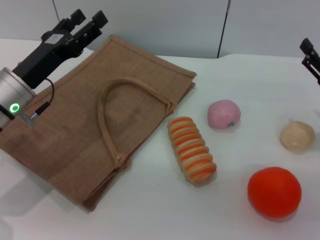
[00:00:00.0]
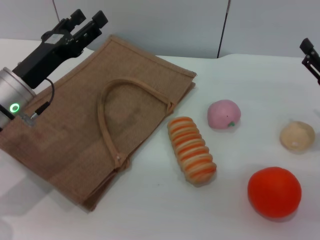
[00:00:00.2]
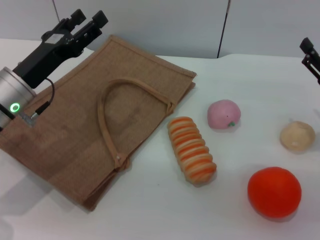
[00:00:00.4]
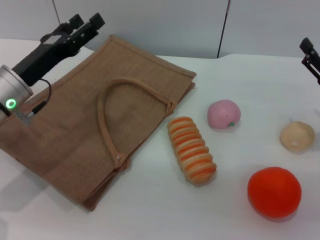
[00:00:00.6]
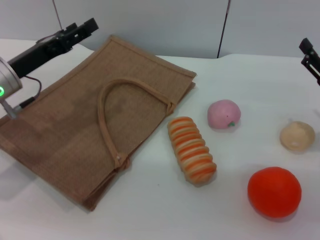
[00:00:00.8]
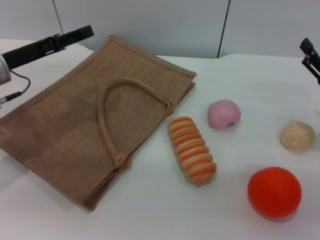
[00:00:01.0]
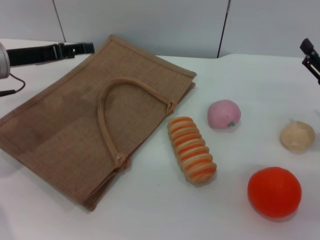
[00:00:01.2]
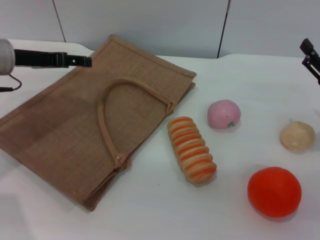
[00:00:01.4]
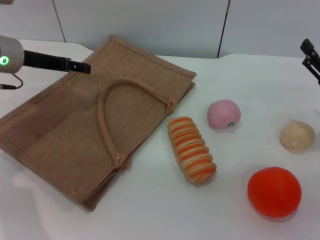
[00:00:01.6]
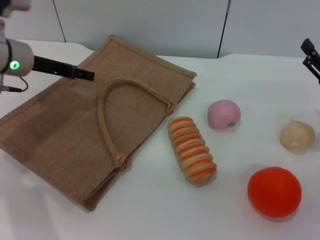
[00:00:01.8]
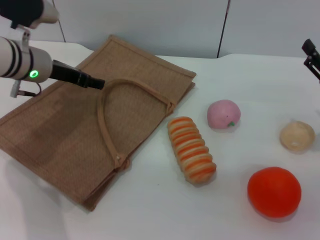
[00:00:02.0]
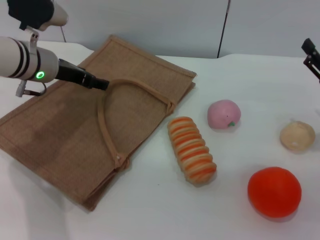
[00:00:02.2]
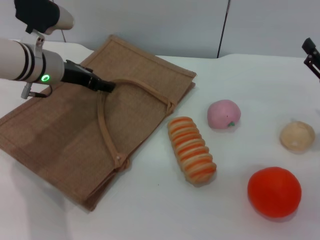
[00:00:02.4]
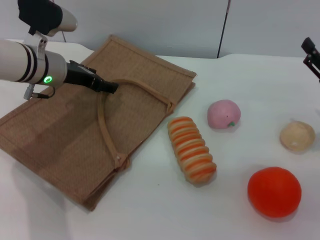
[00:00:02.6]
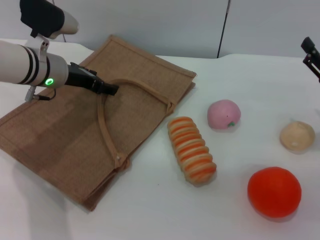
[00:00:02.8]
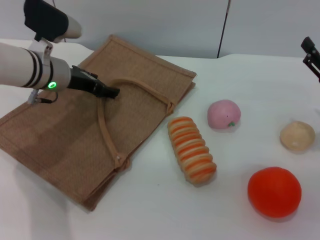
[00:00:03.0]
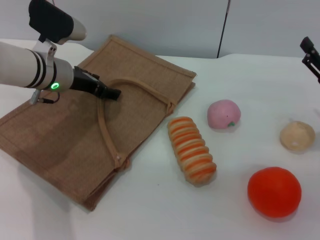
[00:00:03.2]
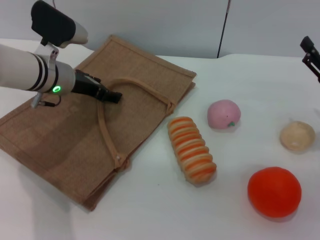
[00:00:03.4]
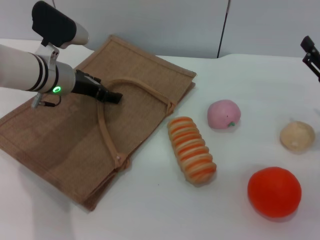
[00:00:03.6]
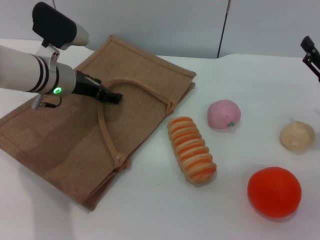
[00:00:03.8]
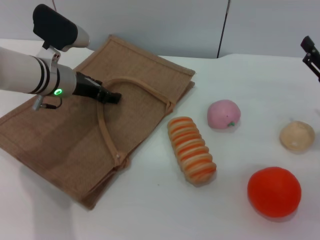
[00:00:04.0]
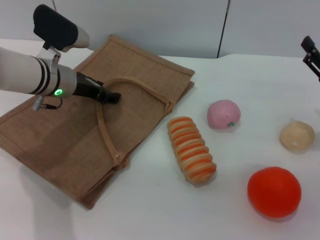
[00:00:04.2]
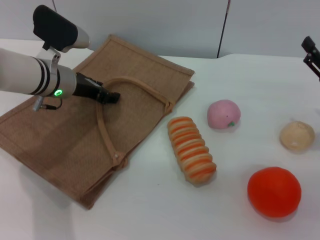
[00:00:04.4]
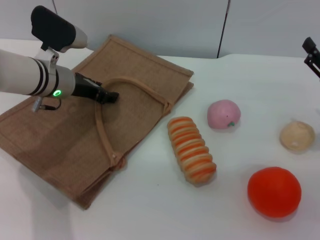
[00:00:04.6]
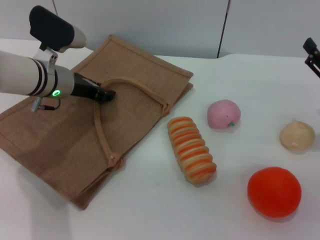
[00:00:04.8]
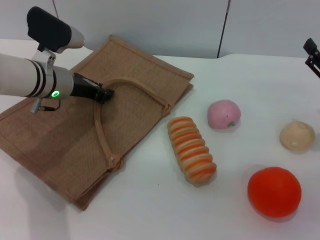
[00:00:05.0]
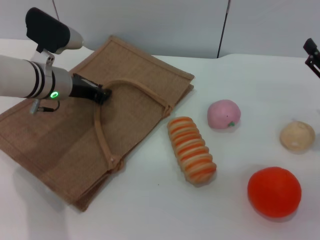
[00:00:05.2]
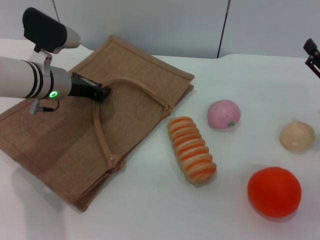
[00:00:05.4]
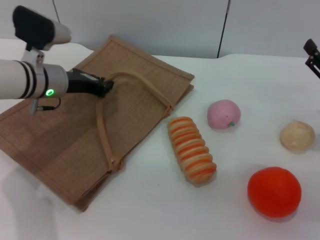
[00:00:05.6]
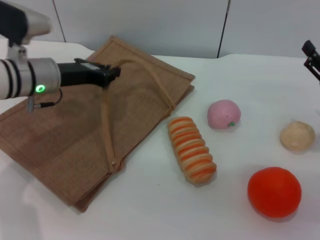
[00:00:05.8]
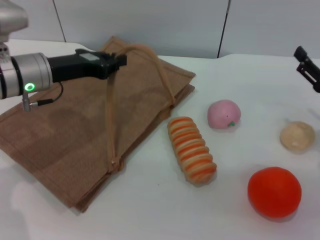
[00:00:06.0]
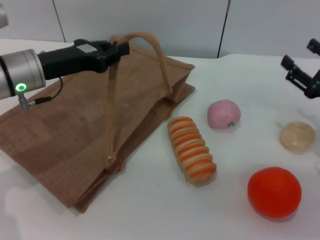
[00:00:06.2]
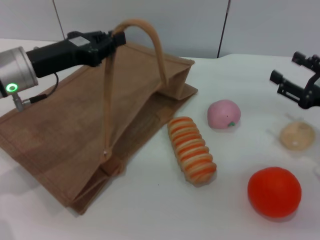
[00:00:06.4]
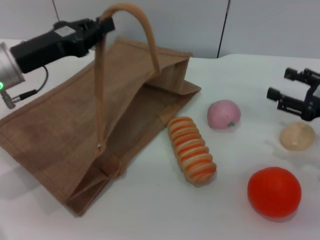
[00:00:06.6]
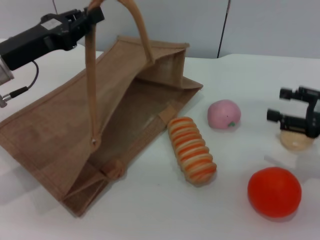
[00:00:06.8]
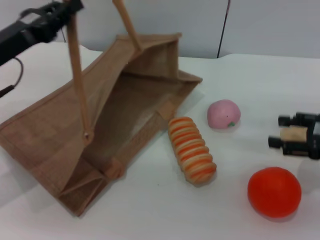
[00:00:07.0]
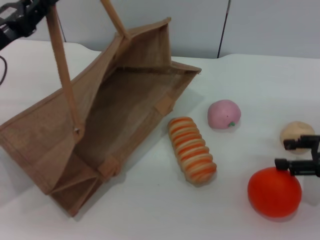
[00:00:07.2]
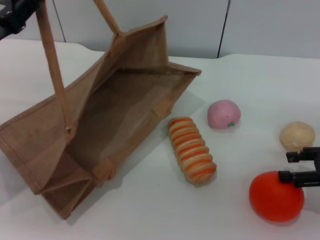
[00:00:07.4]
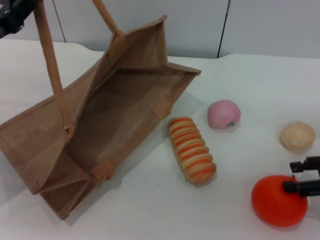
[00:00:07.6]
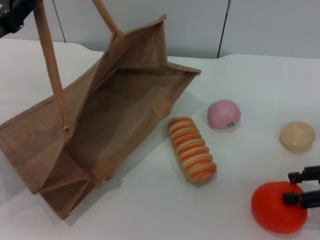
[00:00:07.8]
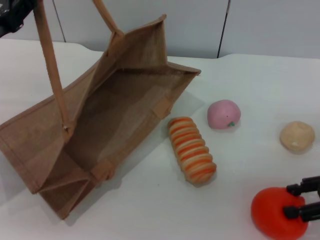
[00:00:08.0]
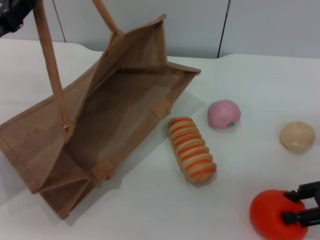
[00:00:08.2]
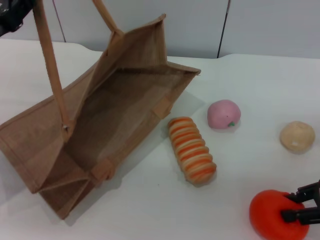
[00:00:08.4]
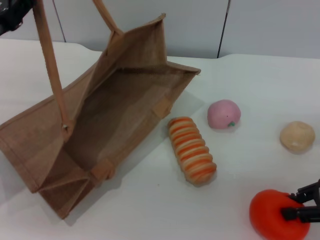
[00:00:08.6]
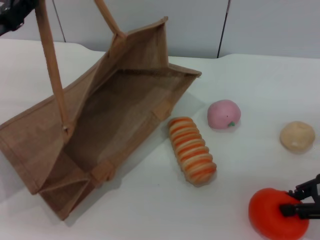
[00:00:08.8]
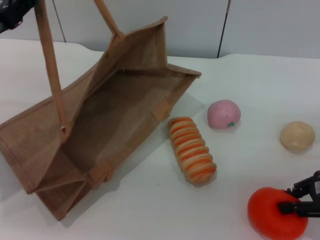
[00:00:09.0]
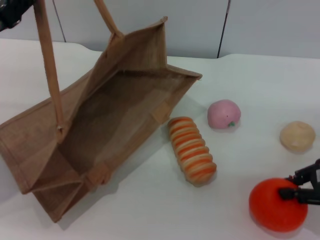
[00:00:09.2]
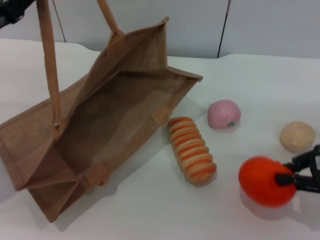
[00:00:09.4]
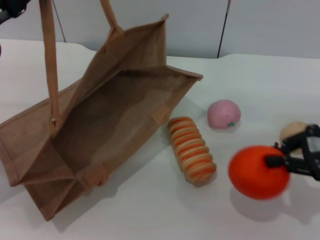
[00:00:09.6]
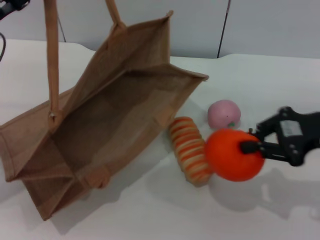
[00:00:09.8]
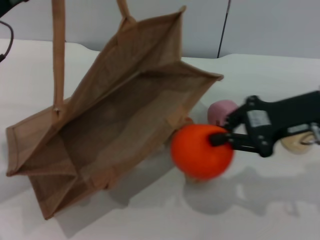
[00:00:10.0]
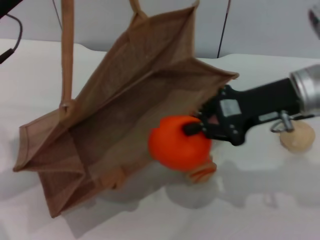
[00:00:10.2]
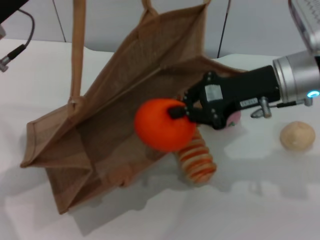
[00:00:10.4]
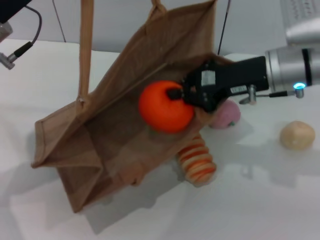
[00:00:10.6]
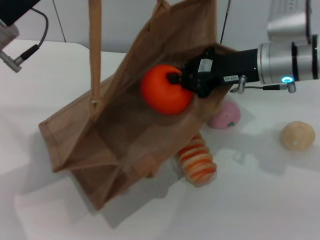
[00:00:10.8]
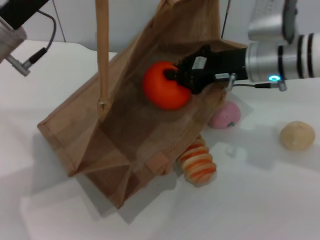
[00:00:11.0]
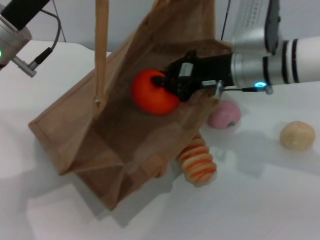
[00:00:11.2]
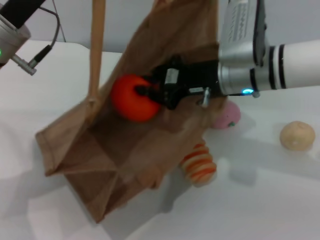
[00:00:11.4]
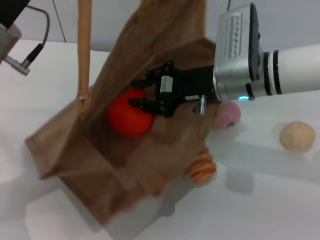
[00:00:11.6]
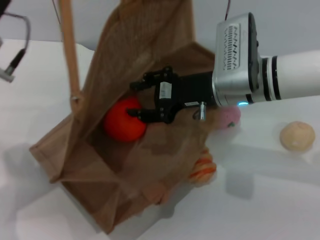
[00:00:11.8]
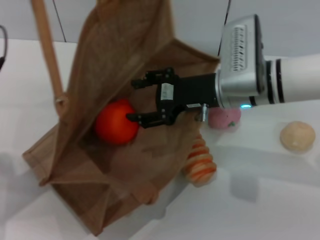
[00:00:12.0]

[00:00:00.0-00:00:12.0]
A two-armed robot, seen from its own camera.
Task of the whole recording: pick up the orange and peach from the table and place it in the brown handbag.
Step, 00:00:00.0 to 00:00:05.8: Lift the woven bag with the left gripper to open it.
Step, 00:00:06.0 to 00:00:09.6: Pick up the orange with the right gripper.
00:00:00.0 to 00:00:01.6: The left gripper moves forward, approximately 10 cm.
00:00:01.6 to 00:00:03.0: The left gripper shifts approximately 5 cm to the right.
00:00:03.0 to 00:00:04.4: Both grippers stay put.
00:00:04.4 to 00:00:06.0: The left gripper moves roughly 5 cm, and closes up.
00:00:06.0 to 00:00:07.6: The left gripper travels to the left and backward by some 10 cm.
00:00:07.6 to 00:00:09.0: The right gripper closes.
00:00:09.0 to 00:00:10.4: The left gripper shifts about 5 cm to the right, while the right gripper travels to the left, forward and upward by approximately 20 cm.
00:00:10.4 to 00:00:12.0: The right gripper moves to the left, some 5 cm, and opens its fingers, while the left gripper shifts by some 5 cm.

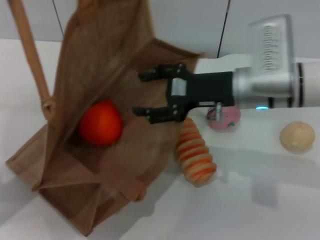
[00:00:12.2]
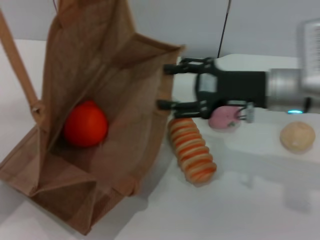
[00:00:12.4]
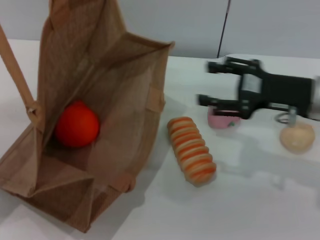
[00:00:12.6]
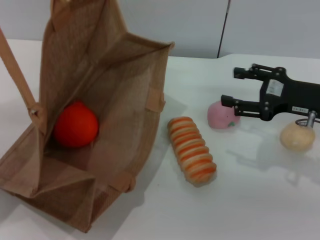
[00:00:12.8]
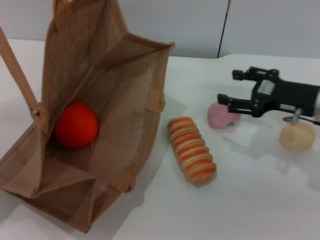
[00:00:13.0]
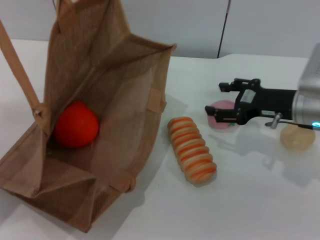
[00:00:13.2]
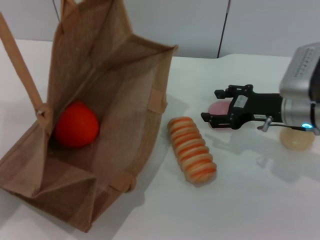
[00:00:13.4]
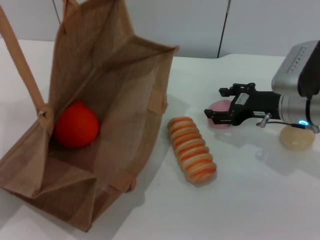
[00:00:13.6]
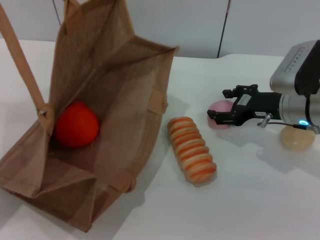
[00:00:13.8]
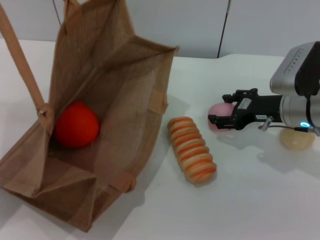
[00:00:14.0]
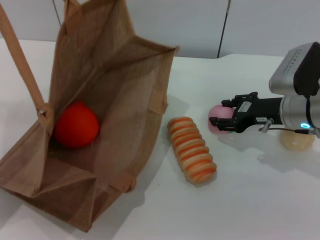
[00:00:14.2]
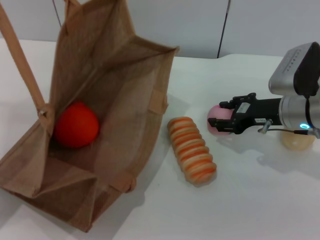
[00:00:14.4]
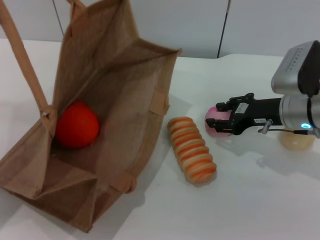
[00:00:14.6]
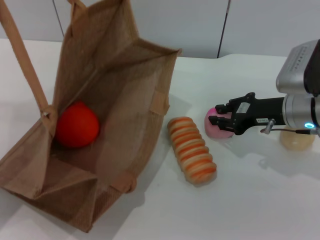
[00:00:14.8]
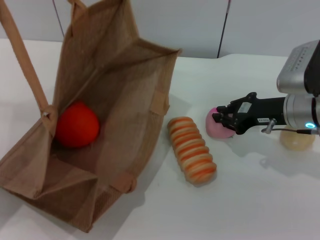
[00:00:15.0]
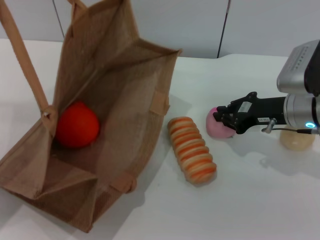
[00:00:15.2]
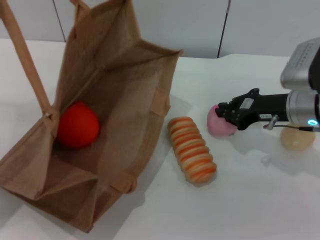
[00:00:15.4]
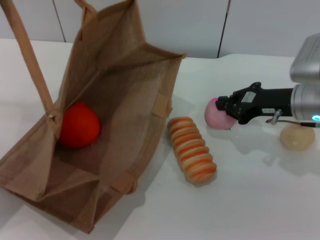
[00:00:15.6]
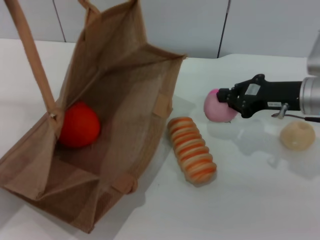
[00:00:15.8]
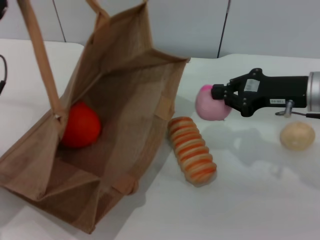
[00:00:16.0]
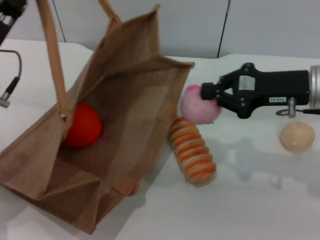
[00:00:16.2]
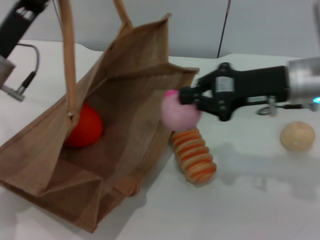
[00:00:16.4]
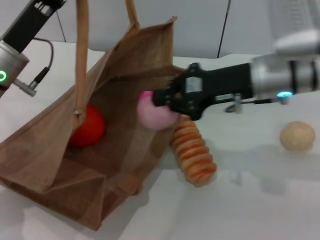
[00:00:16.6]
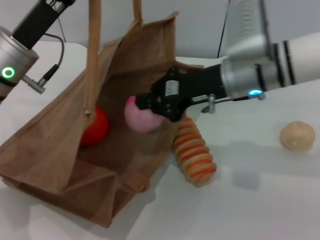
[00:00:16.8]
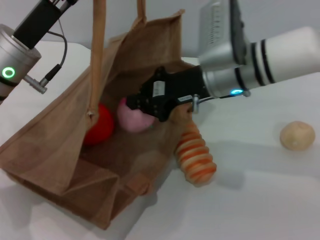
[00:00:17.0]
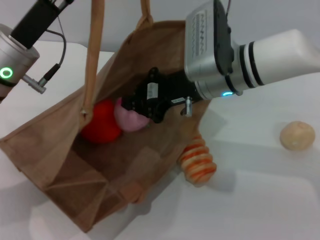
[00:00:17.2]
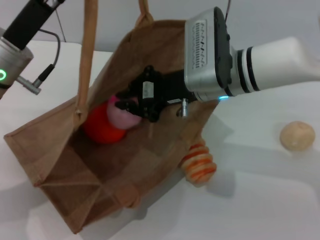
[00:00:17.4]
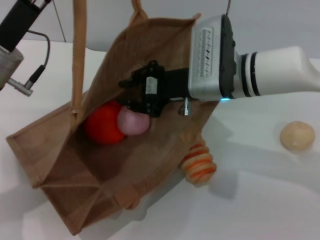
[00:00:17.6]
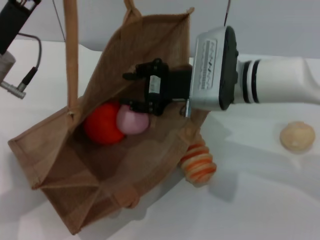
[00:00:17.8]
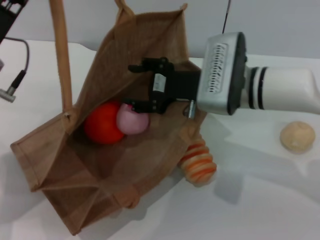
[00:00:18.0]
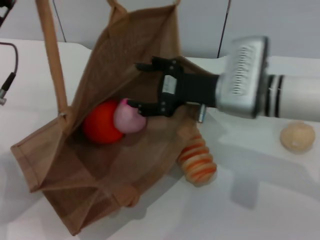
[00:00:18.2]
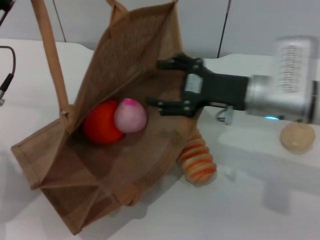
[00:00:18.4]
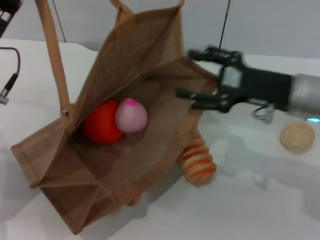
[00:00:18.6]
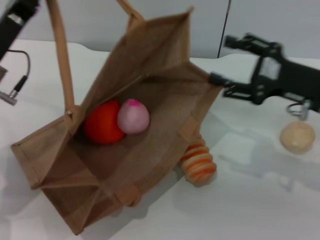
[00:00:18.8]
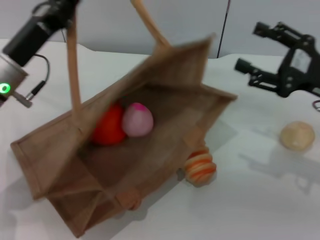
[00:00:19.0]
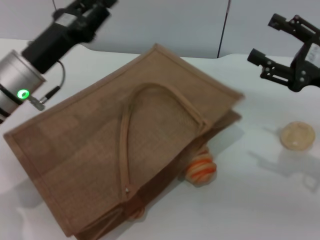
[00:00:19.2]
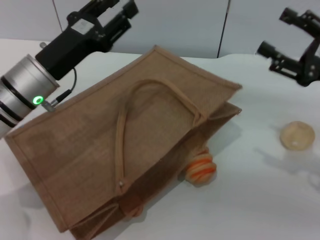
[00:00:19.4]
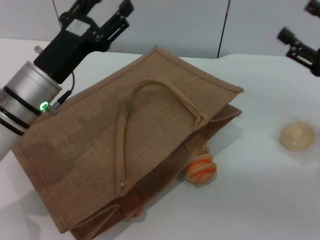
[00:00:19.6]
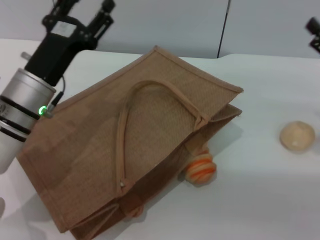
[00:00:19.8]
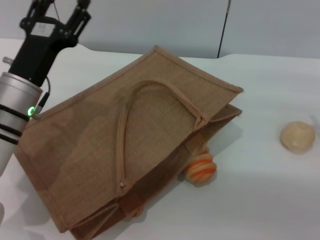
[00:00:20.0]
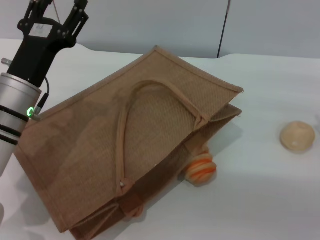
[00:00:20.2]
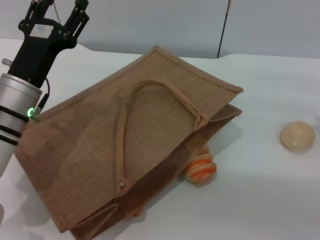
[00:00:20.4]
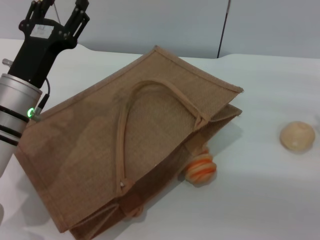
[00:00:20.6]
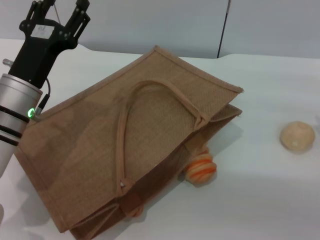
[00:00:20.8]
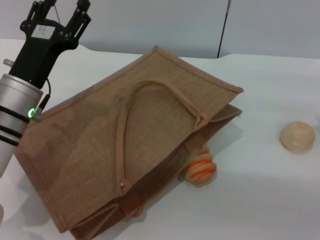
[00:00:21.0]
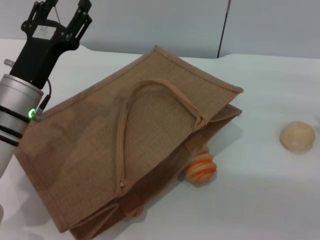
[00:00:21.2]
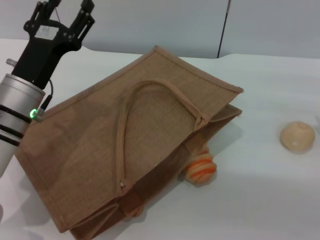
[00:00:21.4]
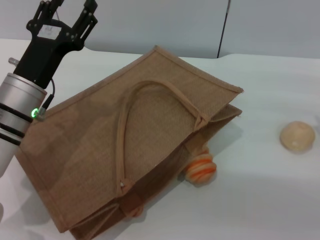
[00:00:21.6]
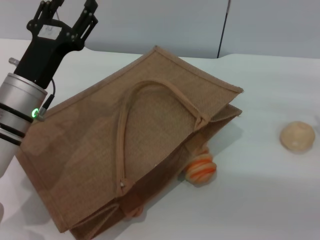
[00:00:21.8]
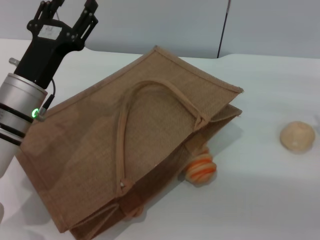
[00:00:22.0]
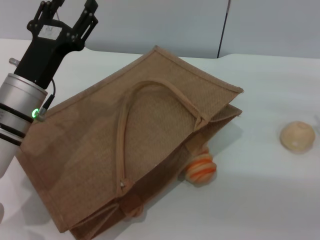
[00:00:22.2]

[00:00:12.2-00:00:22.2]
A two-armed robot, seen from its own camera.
Task of the whole recording: pick up the orange and peach from the table and place it in the brown handbag.
Step, 00:00:12.8 to 00:00:16.2: Pick up the peach with the right gripper.
Step, 00:00:16.4 to 00:00:18.2: Place the peach into the woven bag with the right gripper.
Step, 00:00:18.4 to 00:00:19.6: Lower the woven bag with the left gripper to close it.
00:00:12.2 to 00:00:13.6: The right gripper shifts some 10 cm to the right and downward.
00:00:13.6 to 00:00:15.0: The right gripper closes up.
00:00:15.0 to 00:00:16.4: The left gripper changes place by some 5 cm. Meanwhile the right gripper moves upward, roughly 10 cm, and closes.
00:00:16.4 to 00:00:18.0: The right gripper travels to the left by some 10 cm, and opens its fingers.
00:00:18.0 to 00:00:19.4: The left gripper changes place by roughly 5 cm, and opens its fingers. Meanwhile the right gripper heads to the right, covering some 20 cm.
00:00:19.4 to 00:00:20.8: The left gripper opens; the right gripper moves some 5 cm.
00:00:20.8 to 00:00:22.2: Neither gripper changes place.
